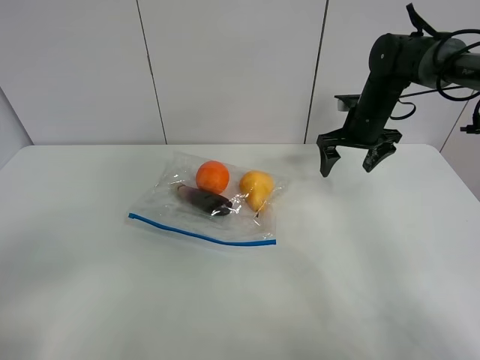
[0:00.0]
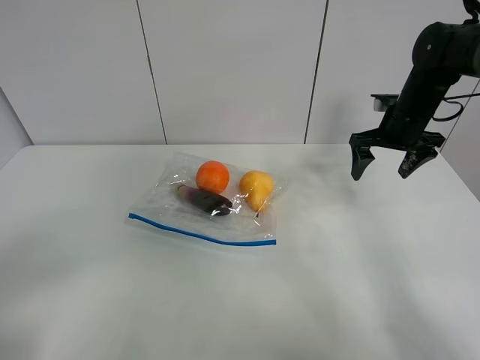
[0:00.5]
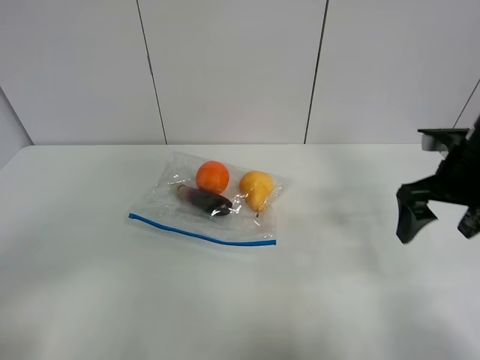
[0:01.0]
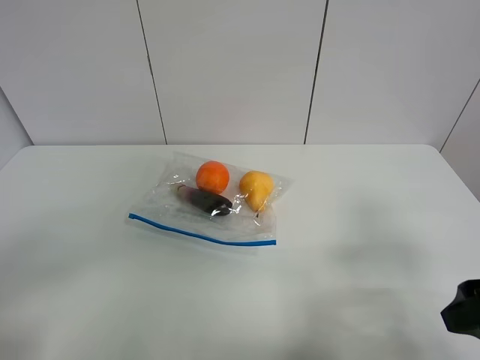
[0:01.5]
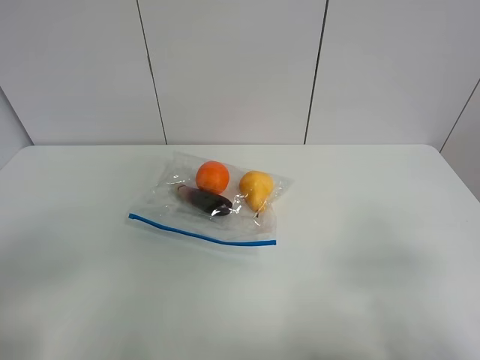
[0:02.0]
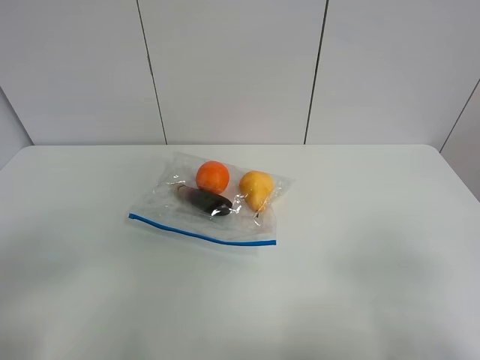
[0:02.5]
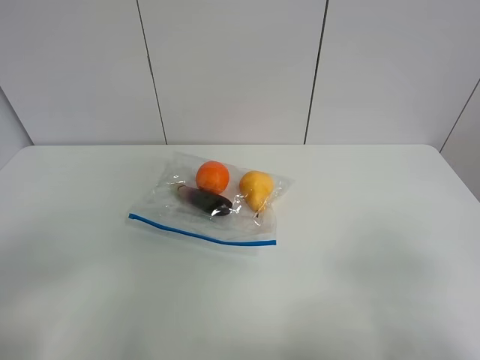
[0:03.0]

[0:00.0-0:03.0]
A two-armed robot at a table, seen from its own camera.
0:00.0 to 0:01.5: The right gripper heads backward, covering some 35 cm.
0:01.5 to 0:03.0: The right gripper travels backward by about 10 cm.

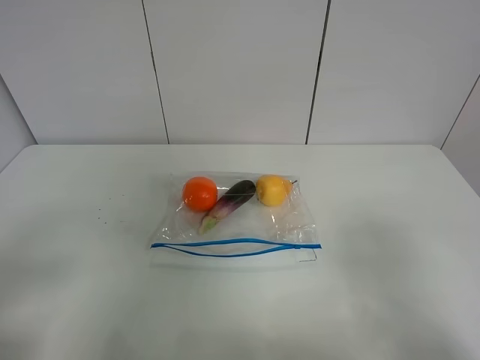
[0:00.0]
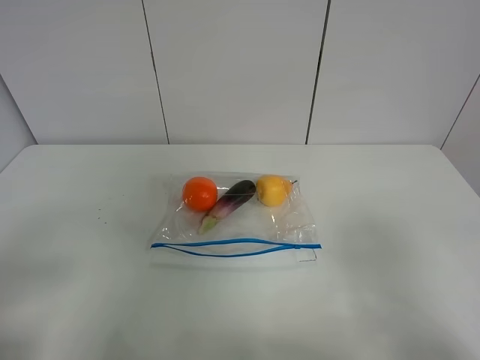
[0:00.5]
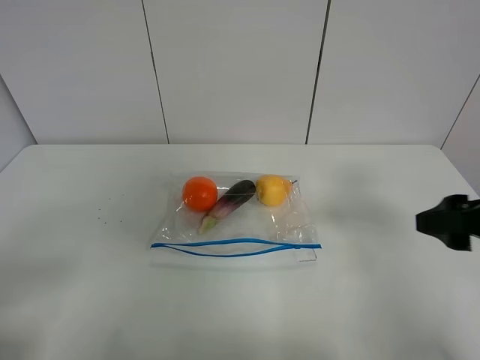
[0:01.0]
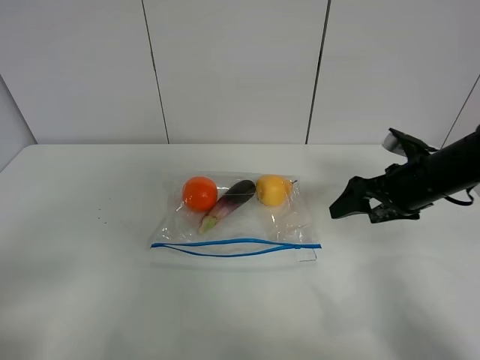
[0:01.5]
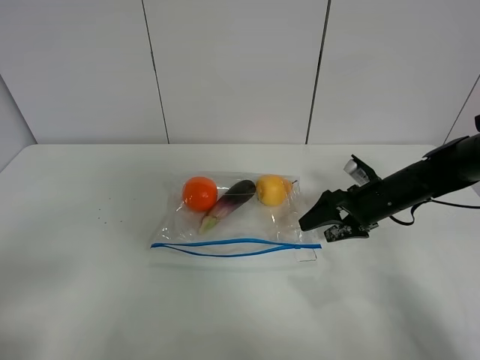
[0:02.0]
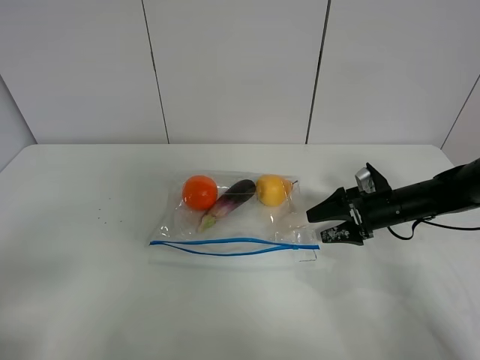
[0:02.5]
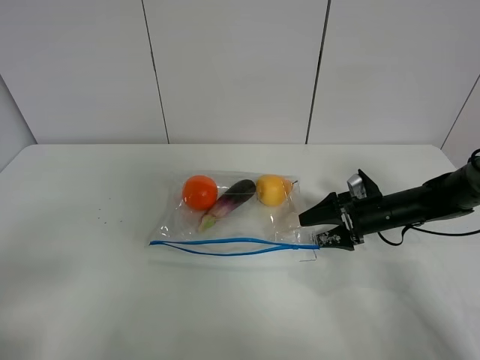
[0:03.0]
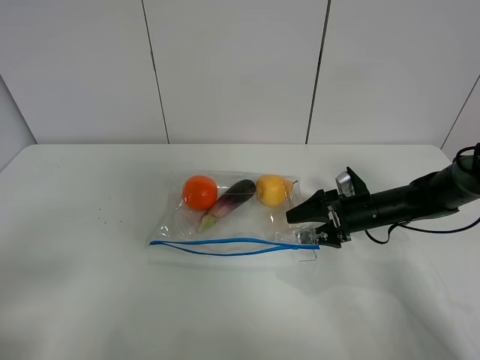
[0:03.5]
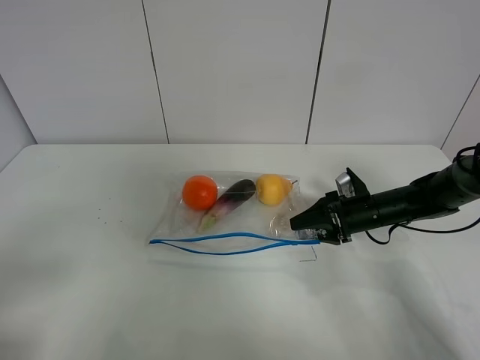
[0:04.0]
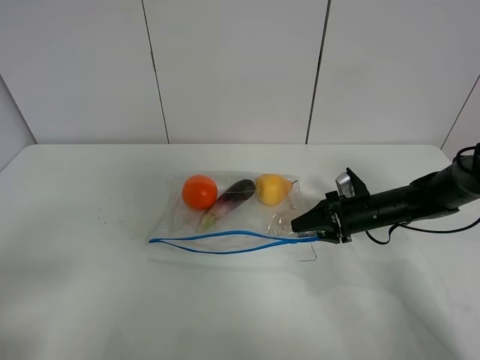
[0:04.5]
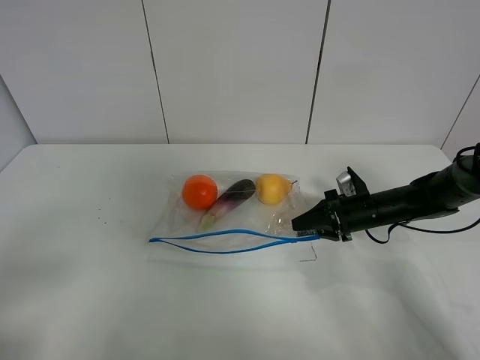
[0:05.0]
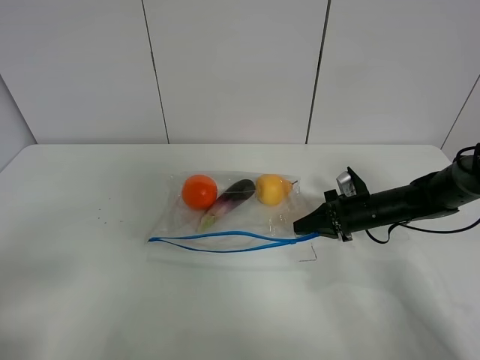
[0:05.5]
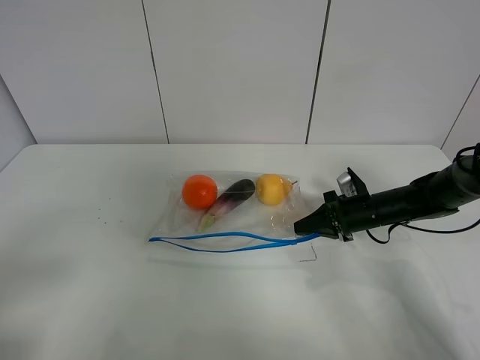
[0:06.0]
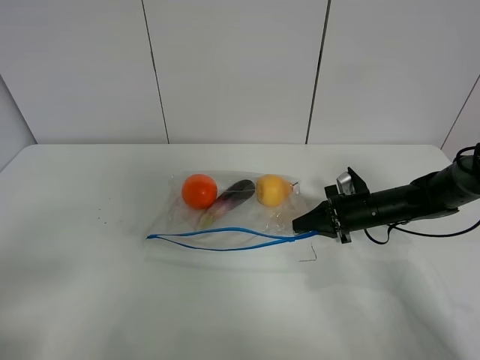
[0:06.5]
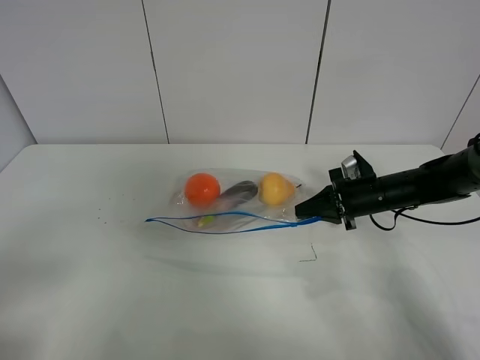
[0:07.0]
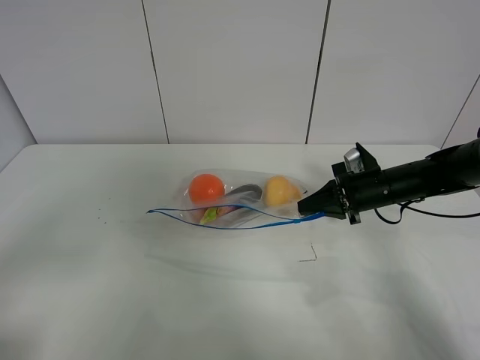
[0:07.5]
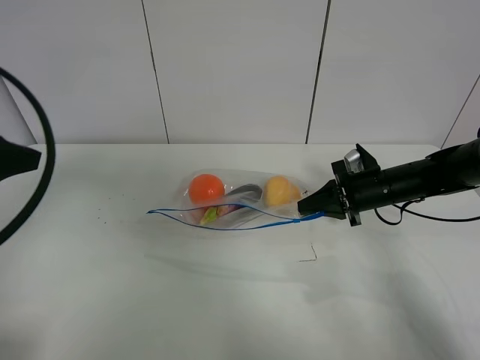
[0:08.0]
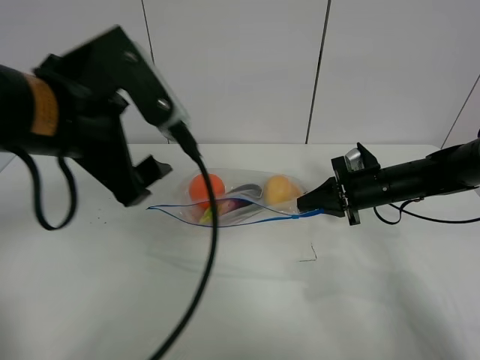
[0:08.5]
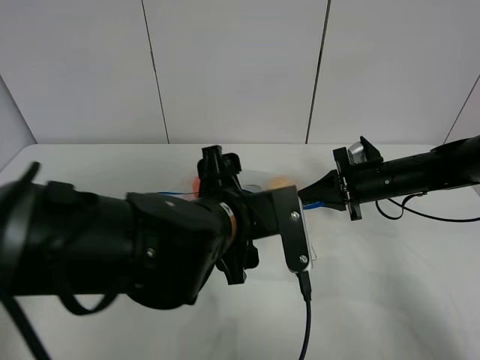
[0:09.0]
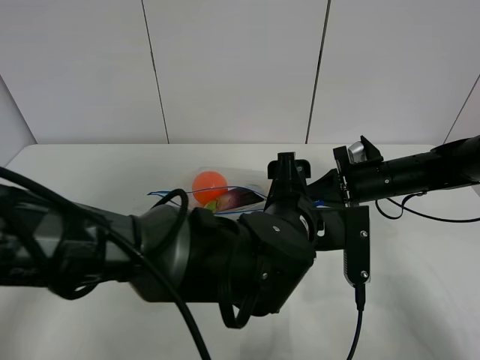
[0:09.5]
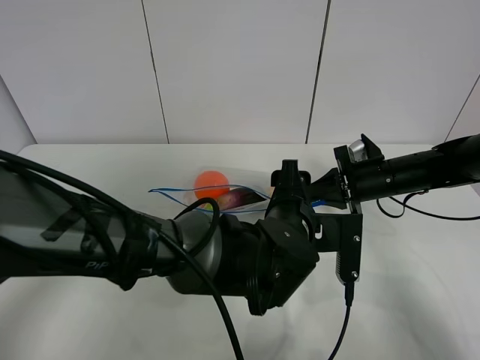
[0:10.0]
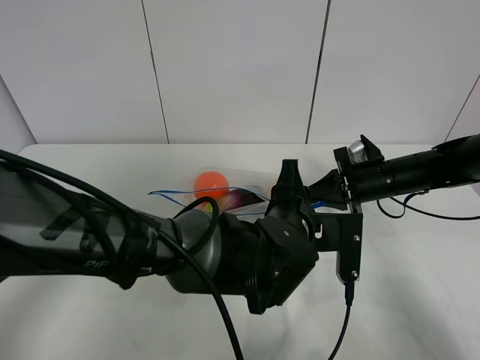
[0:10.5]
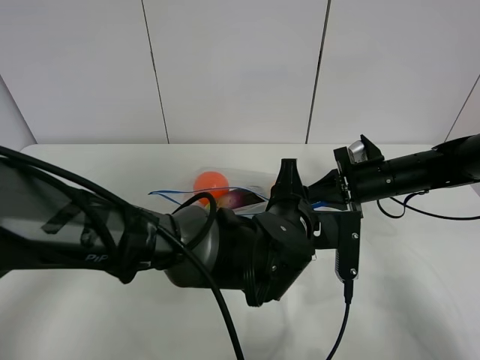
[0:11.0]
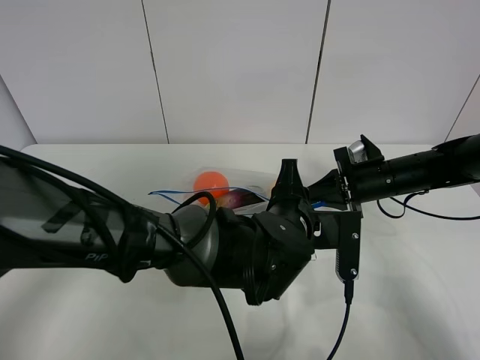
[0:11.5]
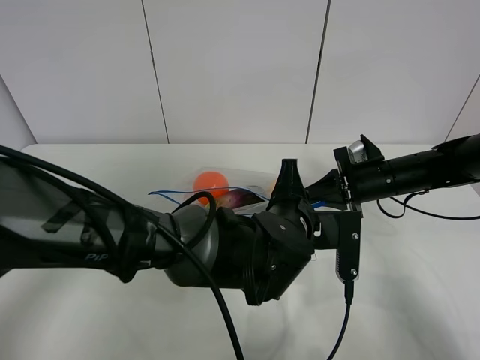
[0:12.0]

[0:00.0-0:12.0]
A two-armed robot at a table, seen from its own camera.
Step, 0:00.0 to 0:05.0: Grasp the fruit bag with right gripper.
Step, 0:05.5 to 0:07.5: Lift the fruit bag with your right gripper.
0:00.0 to 0:02.0: The right gripper moves forward and downward, some 40 cm.
0:02.0 to 0:04.0: The right gripper closes its fingers.
0:04.0 to 0:06.0: The right gripper closes.
0:06.0 to 0:08.0: The right gripper shifts approximately 5 cm upward; the left gripper heads forward and upward, covering some 20 cm.
0:08.0 to 0:10.0: The left gripper goes about 40 cm to the right and downward.
0:10.0 to 0:12.0: The left gripper closes its fingers.

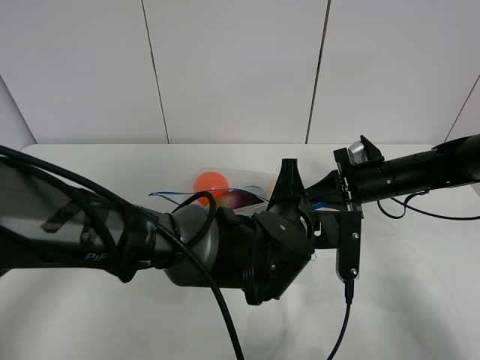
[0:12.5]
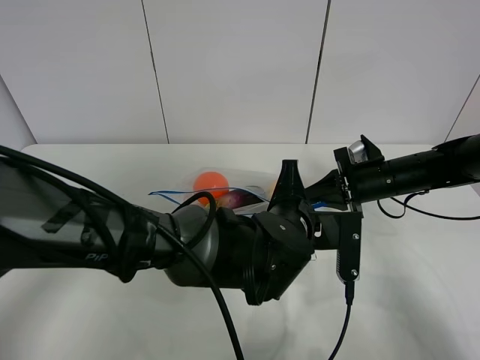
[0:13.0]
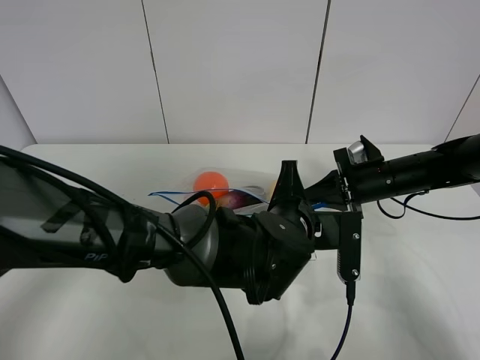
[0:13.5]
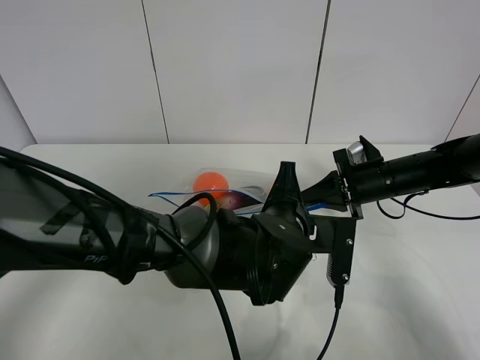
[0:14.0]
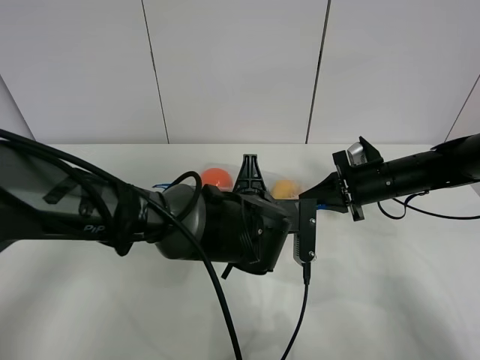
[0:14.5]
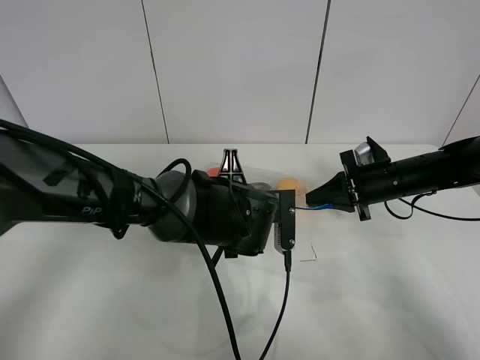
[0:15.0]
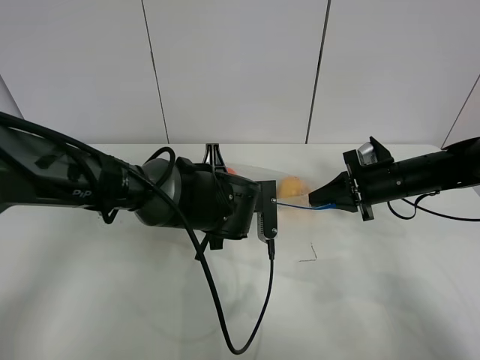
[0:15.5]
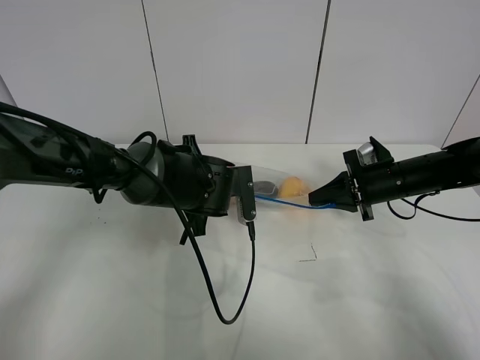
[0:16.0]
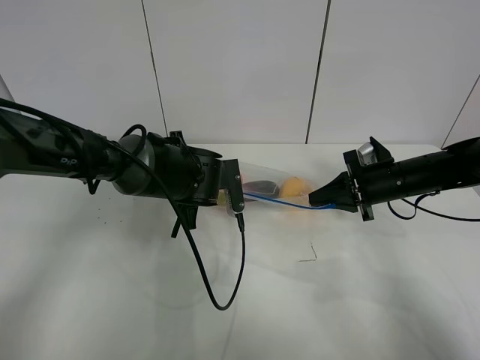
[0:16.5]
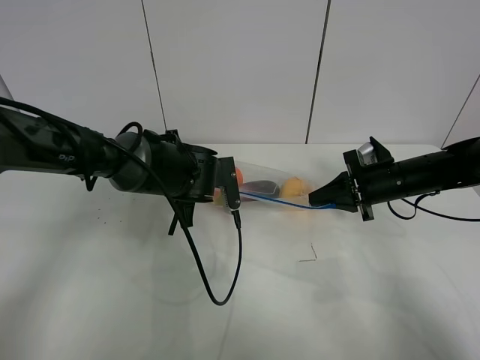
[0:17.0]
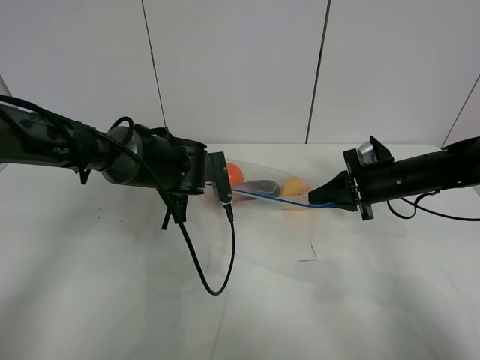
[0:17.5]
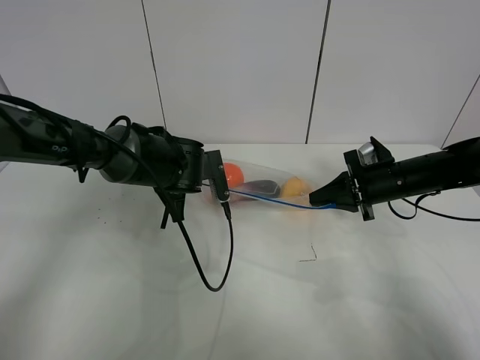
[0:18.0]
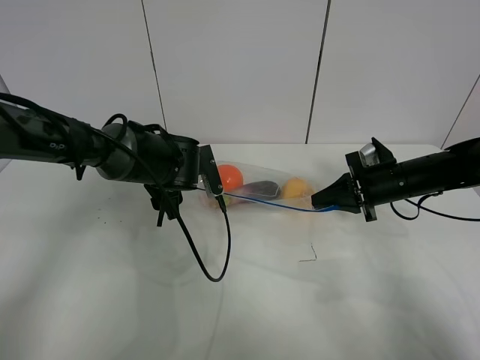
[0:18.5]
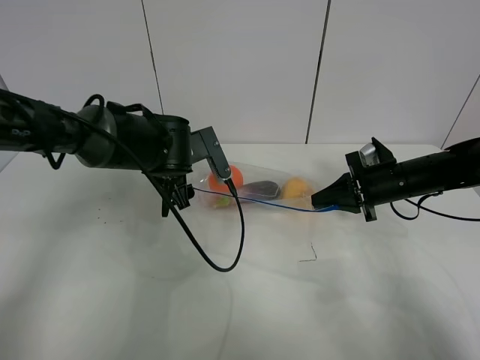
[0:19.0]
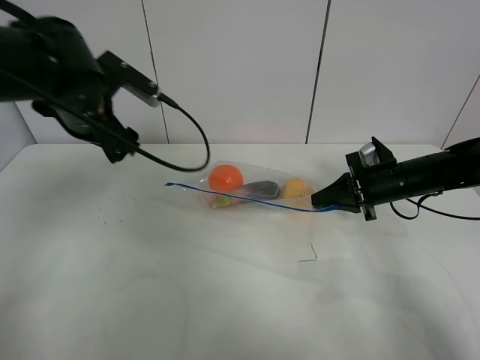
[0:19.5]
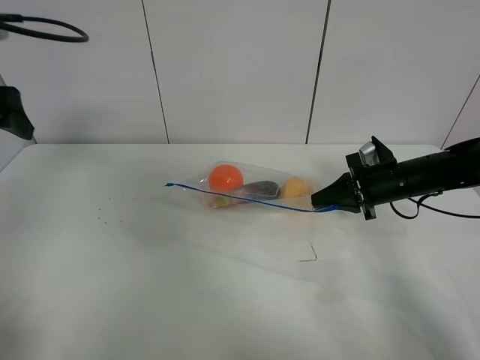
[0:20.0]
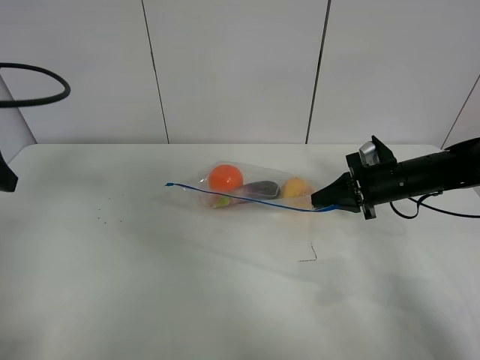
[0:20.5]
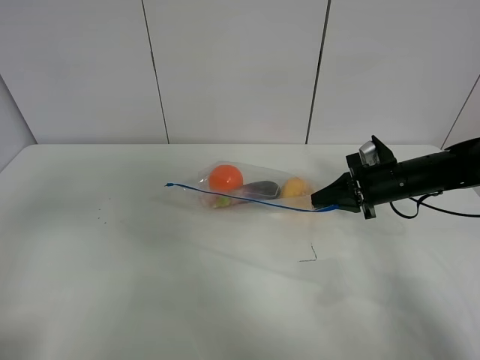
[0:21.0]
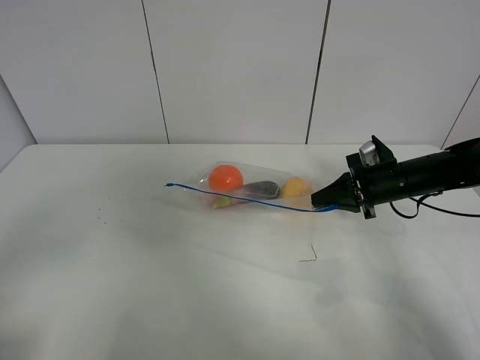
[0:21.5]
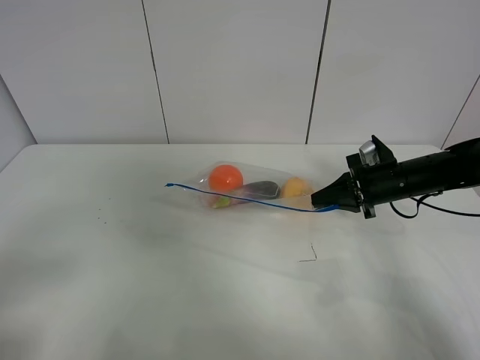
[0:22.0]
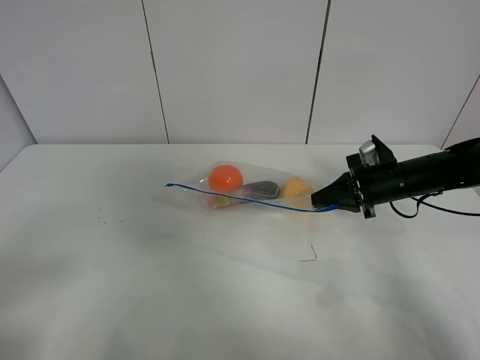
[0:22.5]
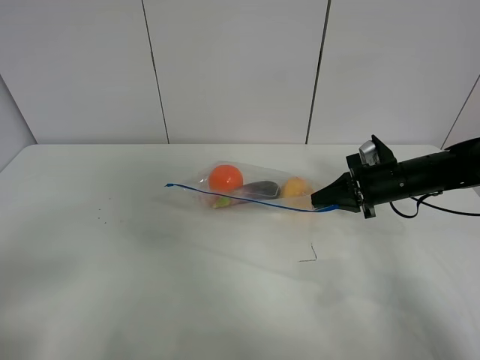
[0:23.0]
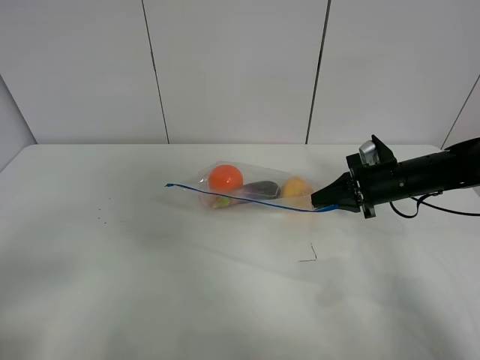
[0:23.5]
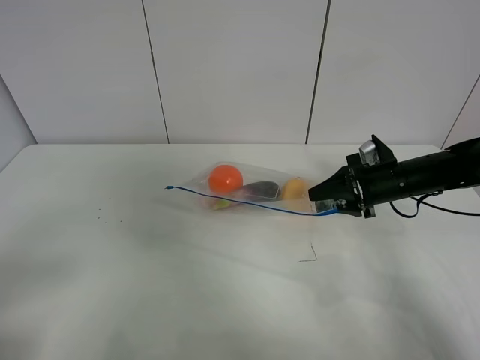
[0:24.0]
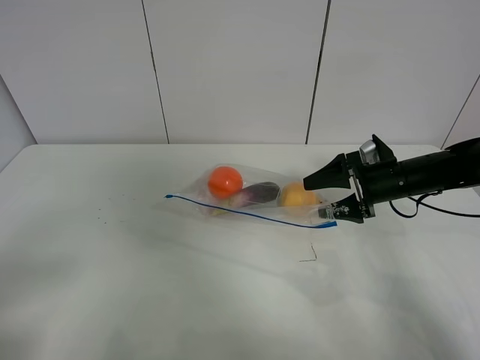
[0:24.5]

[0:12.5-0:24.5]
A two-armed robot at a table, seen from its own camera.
Step, 0:12.5 to 0:18.0: Pull the fruit bag with left gripper.
0:12.5 to 0:14.5: The left gripper moves approximately 5 cm.
0:14.5 to 0:16.5: The left gripper travels to the left and forward by about 10 cm.
0:16.5 to 0:18.5: The left gripper opens up.
0:18.5 to 0:20.5: The left gripper travels to the left, upward and backward by roughly 35 cm.
0:20.5 to 0:22.5: The left gripper travels backward by some 20 cm.
0:22.5 to 0:24.5: The right gripper opens its fingers.
